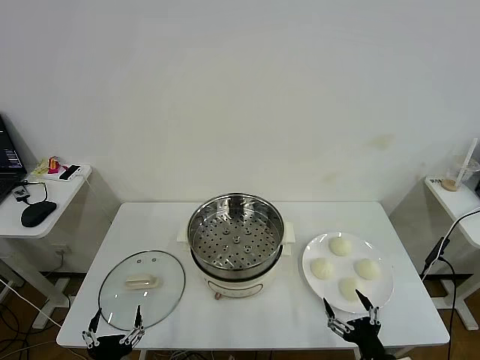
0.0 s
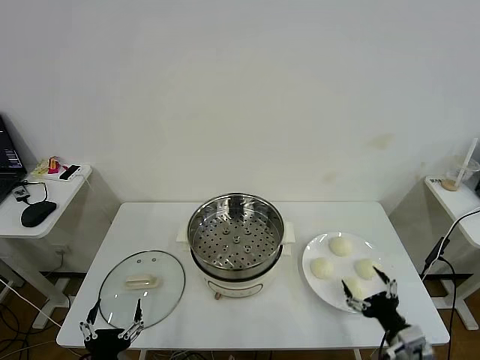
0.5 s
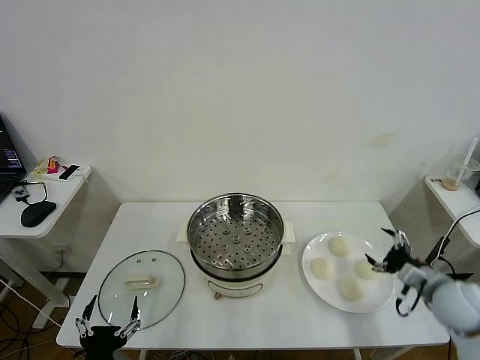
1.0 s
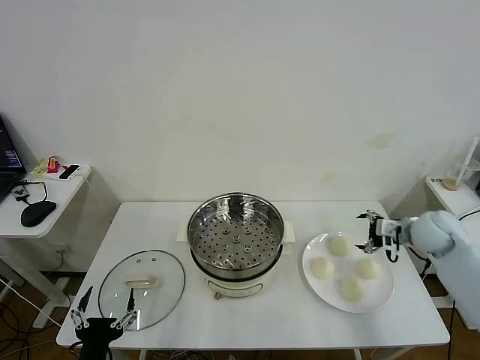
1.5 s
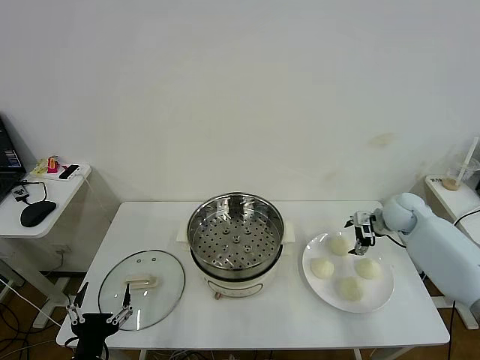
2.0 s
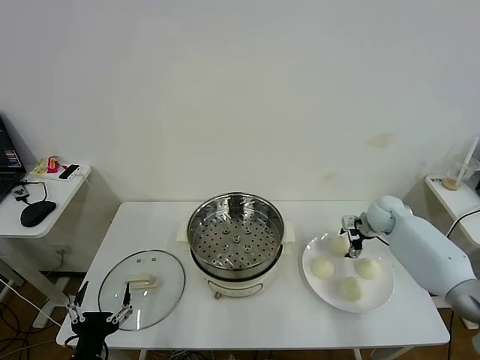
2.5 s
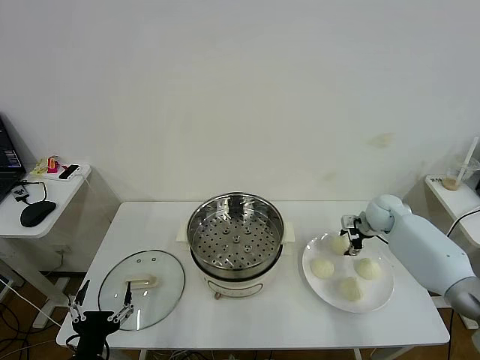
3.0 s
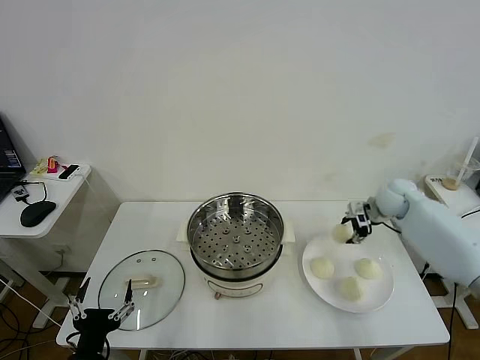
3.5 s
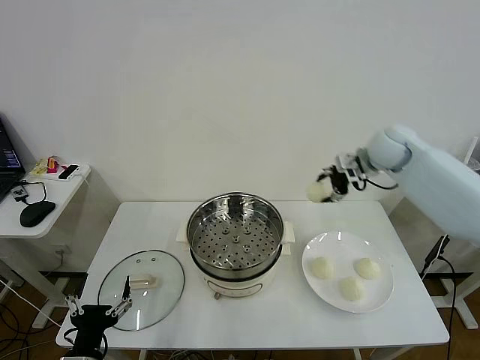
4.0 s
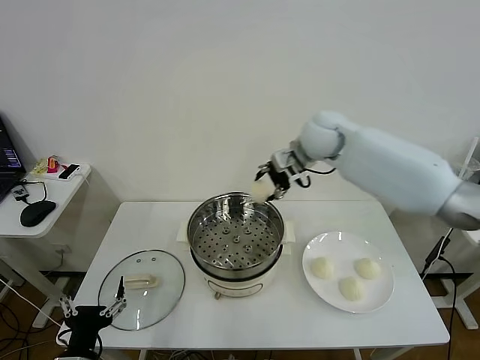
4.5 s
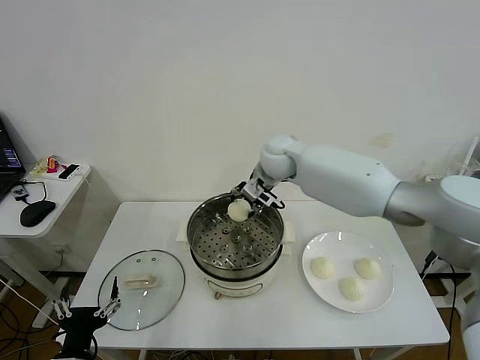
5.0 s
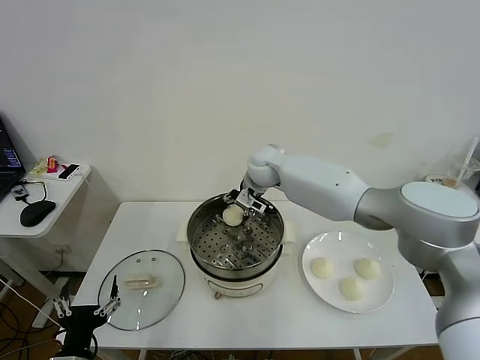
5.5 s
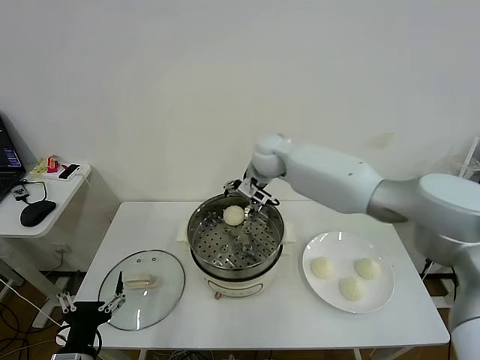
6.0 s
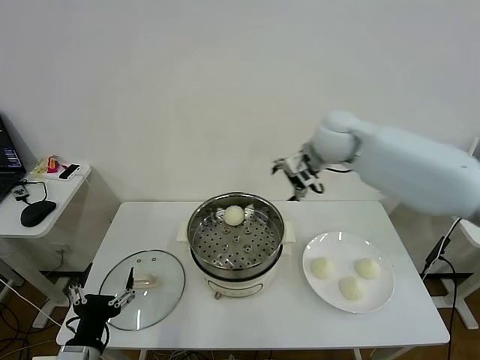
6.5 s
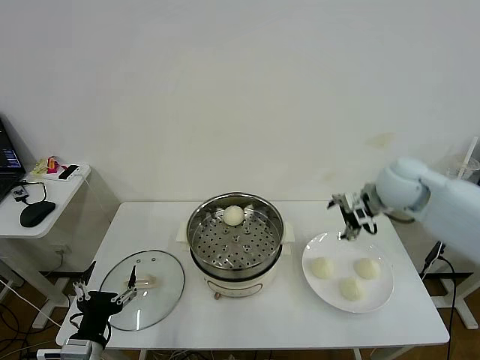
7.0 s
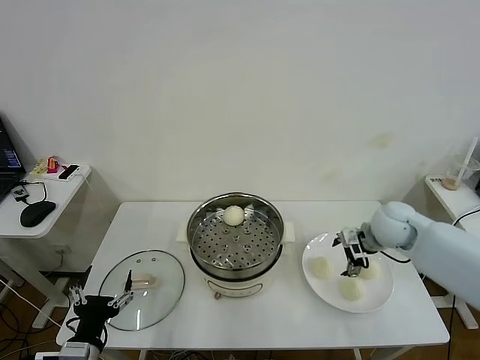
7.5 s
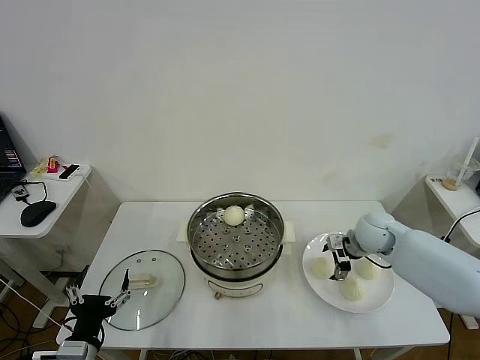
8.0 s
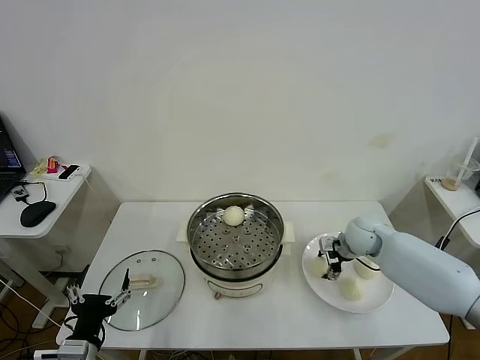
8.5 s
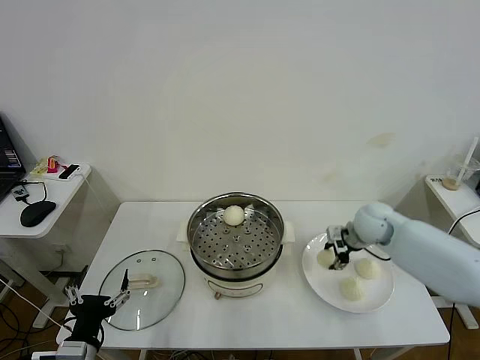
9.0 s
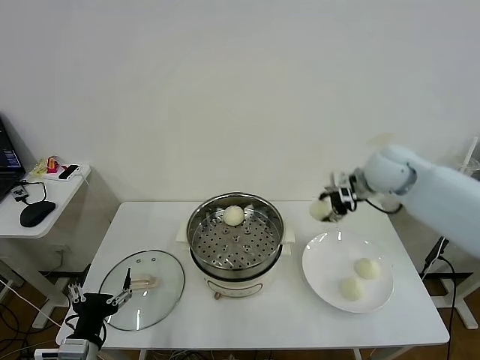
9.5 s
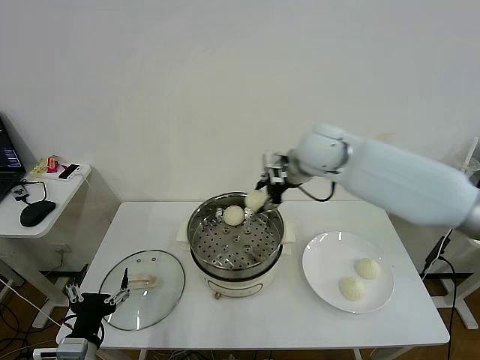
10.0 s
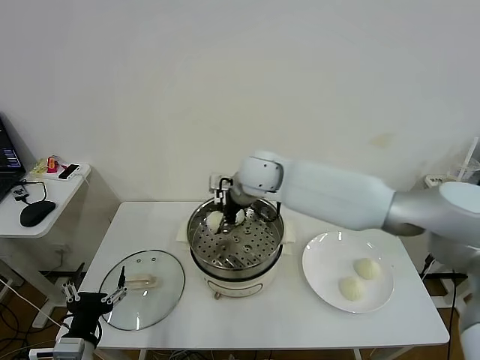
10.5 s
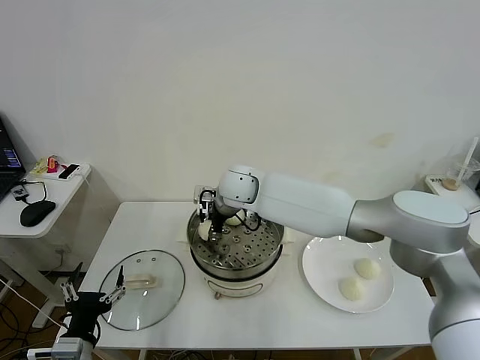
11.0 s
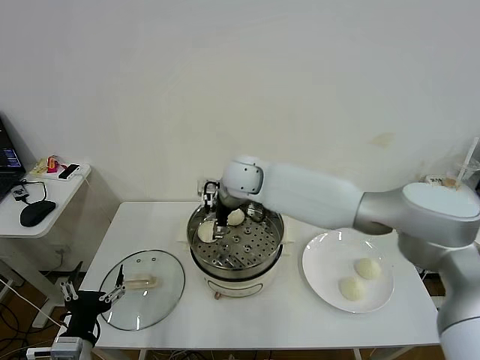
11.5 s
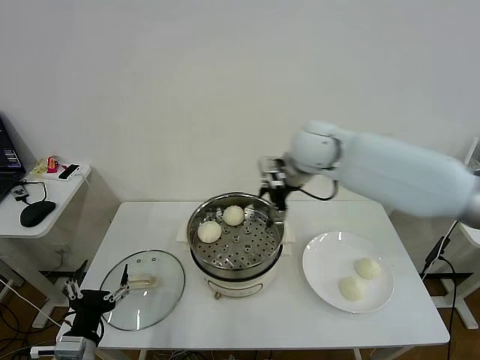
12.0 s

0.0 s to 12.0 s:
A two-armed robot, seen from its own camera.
Task of the whole recording: take steamed baozi put them in steamer then cover it.
Step, 0.0 to 2.5 s: Grasp the baozi in the plate with right gripper.
Step, 3.0 to 5.5 s: Place the baozi on the steamer with right gripper.
Step, 6.0 to 8.5 s: Grasp the baozi in the plate with right gripper.
Step, 9.0 to 11.5 s: Place the baozi on the steamer with right gripper.
2.0 to 4.0 s: The right gripper goes approximately 25 cm upward and to the left, and closes its fingers.
4.0 to 6.0 s: The right gripper shifts approximately 20 cm to the left, and opens.
6.0 to 8.0 s: The right gripper moves to the right, downward and backward, about 30 cm.
8.0 to 10.0 s: The right gripper travels upward and to the left by some 30 cm, and closes its fingers.
10.0 to 12.0 s: The right gripper travels to the left and back again, approximately 15 cm each way, and opens.

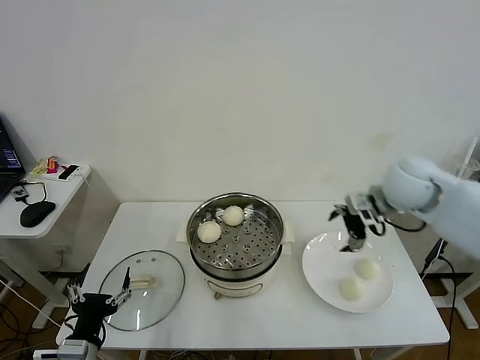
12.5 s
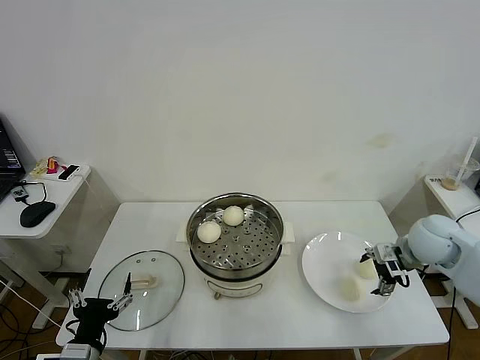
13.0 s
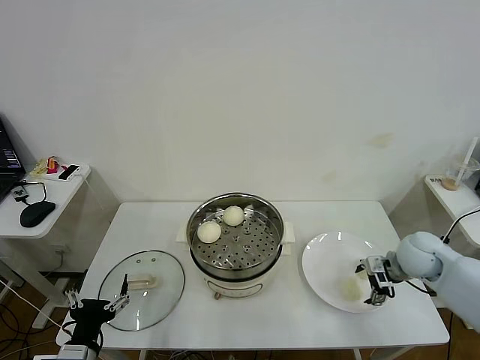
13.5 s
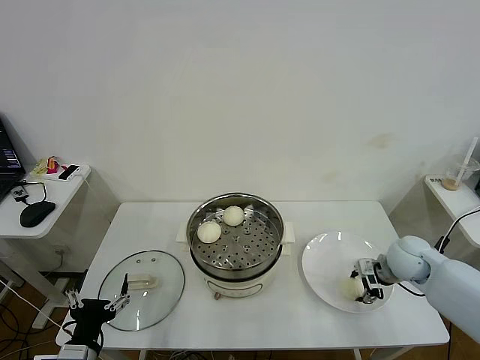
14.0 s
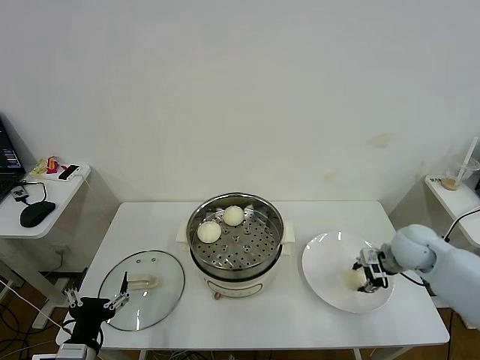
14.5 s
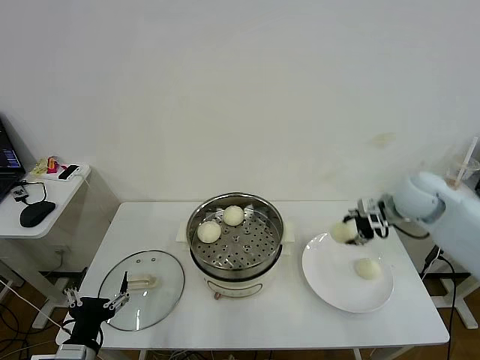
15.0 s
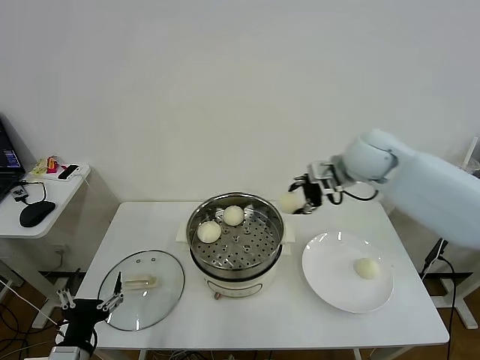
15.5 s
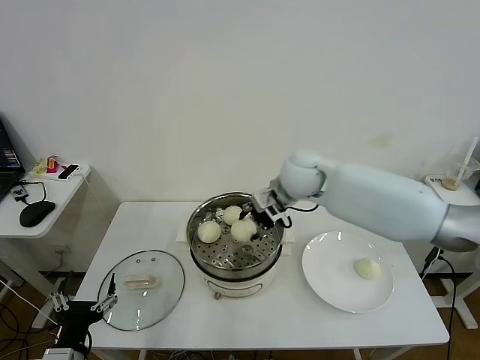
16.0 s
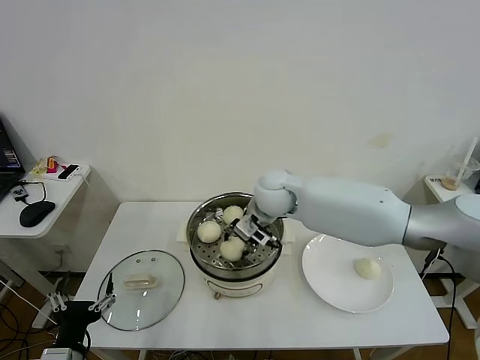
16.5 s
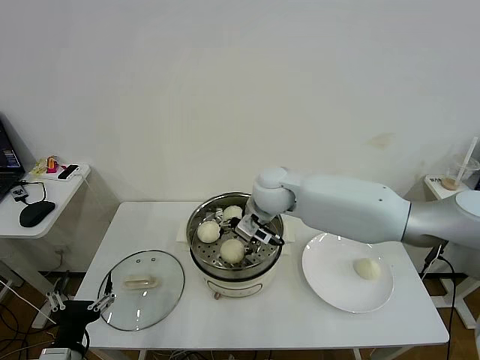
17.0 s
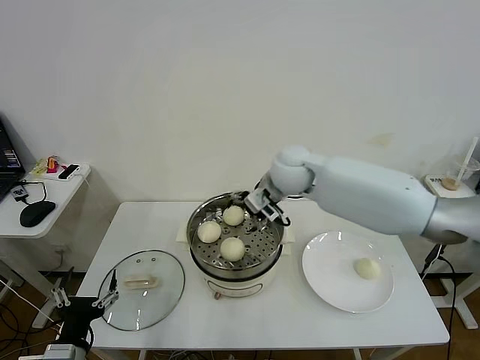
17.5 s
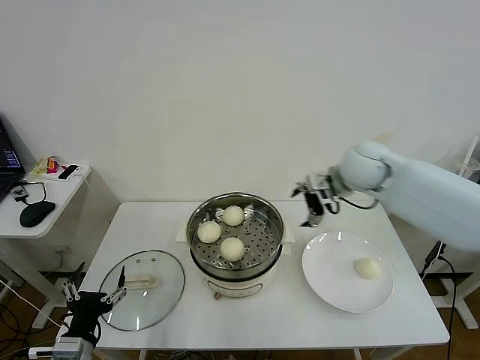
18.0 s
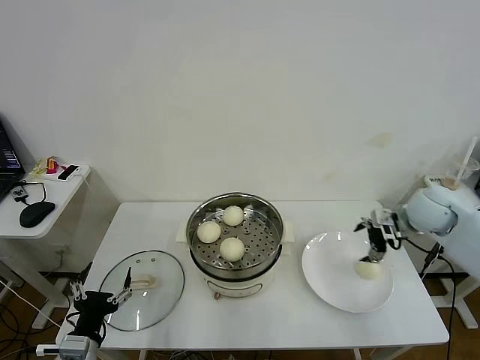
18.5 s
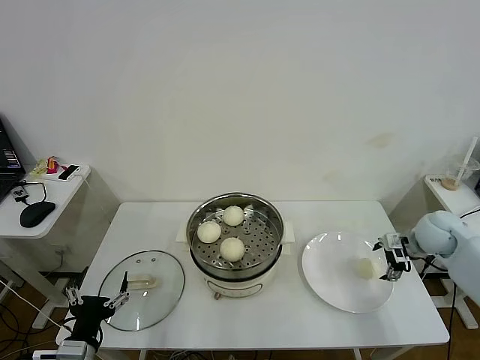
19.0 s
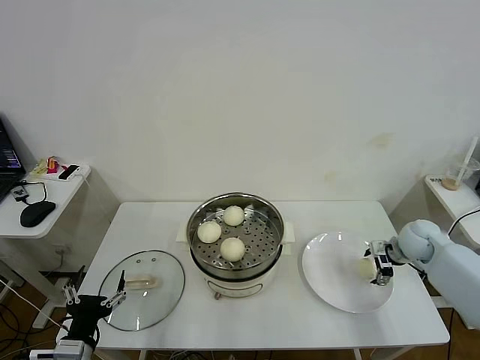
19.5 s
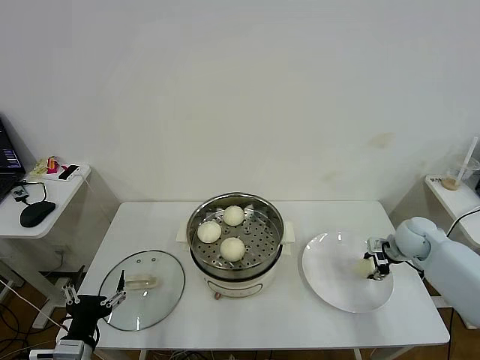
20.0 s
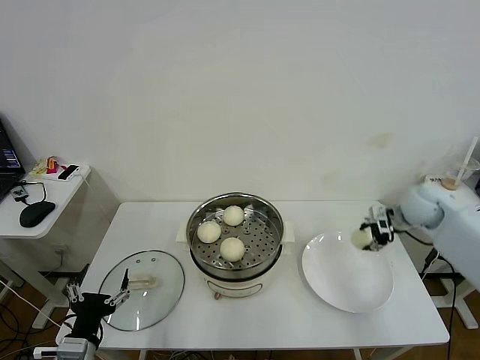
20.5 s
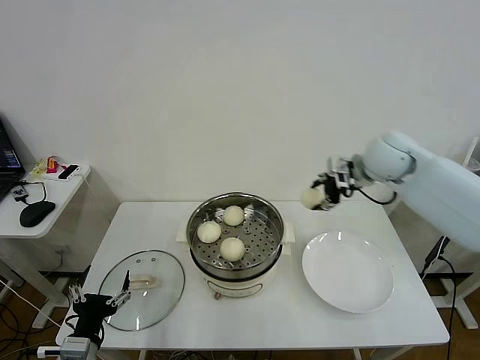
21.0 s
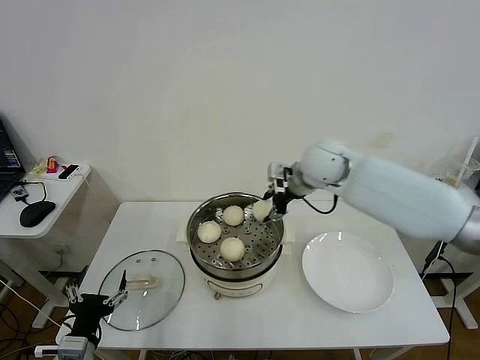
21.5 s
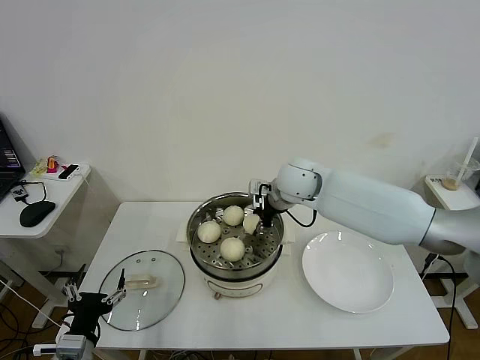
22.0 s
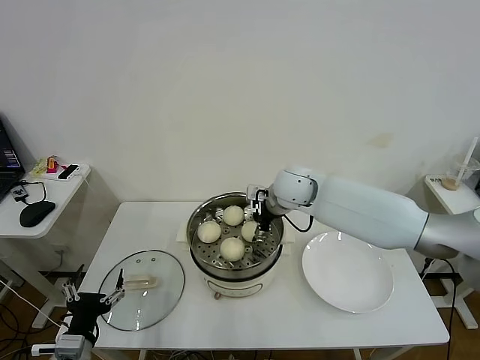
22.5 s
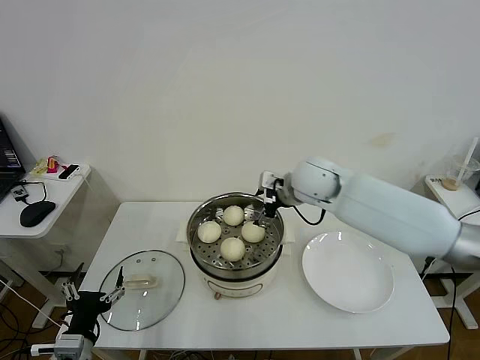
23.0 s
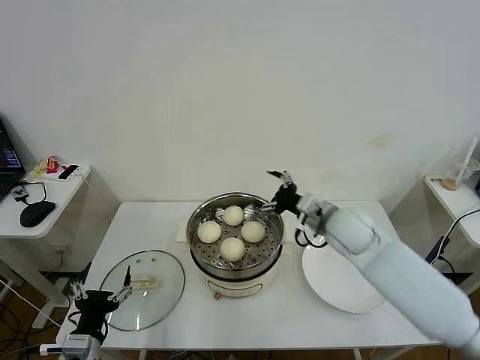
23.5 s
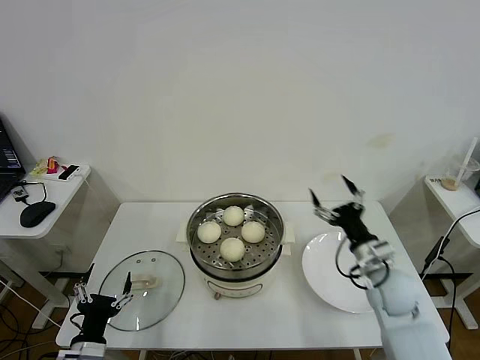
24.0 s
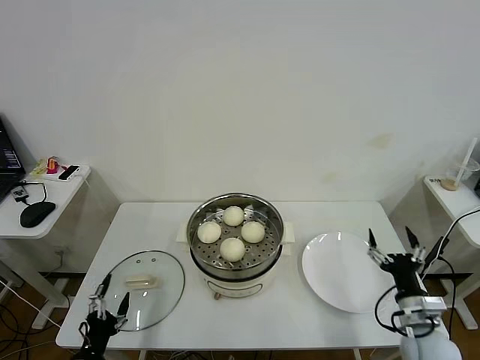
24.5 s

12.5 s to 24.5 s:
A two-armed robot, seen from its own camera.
Task of the whole recording: take steamed baozi put them in steamer then cover it.
Step, 12.5 to 14.0 s: Grasp the baozi in the plate with right gripper.
Step, 14.5 to 17.0 s: Place the baozi on the steamer with right gripper.
Step, 17.5 to 19.5 s: Grasp the baozi in the plate with right gripper.
Step, 20.5 to 22.5 s: Place the baozi on the steamer with right gripper.
12.5 to 14.5 s: The right gripper shifts roughly 15 cm downward, and closes its fingers.
14.5 to 16.5 s: The right gripper heads to the left, covering approximately 30 cm.
16.5 to 18.5 s: The right gripper travels to the right by about 35 cm, and opens up.
18.5 to 20.5 s: The right gripper goes downward and returns, approximately 10 cm each way, and closes.
20.5 to 22.5 s: The right gripper heads to the left, covering about 30 cm, and opens up.
22.5 to 24.5 s: The right gripper is displaced backward, to the right and downward by some 40 cm. Meanwhile the left gripper moves downward, about 5 cm.

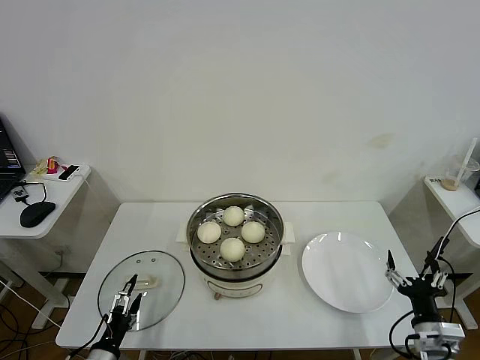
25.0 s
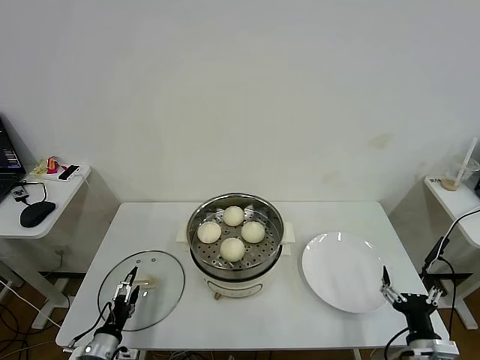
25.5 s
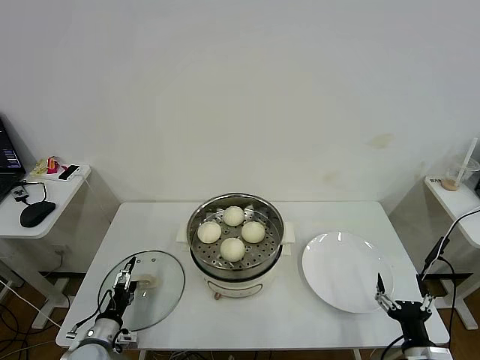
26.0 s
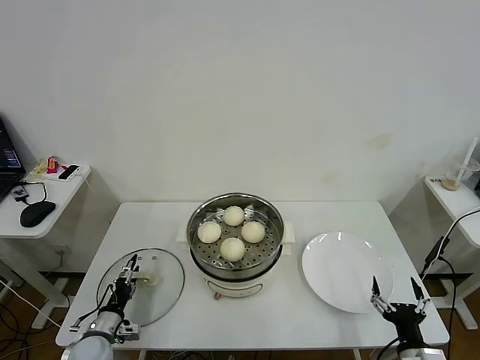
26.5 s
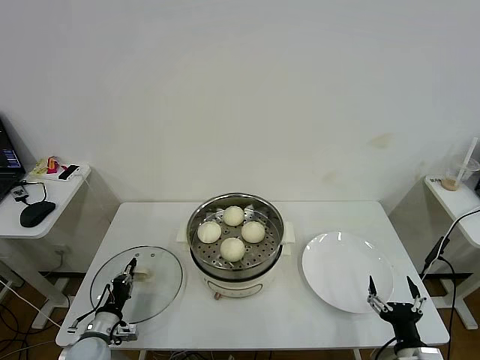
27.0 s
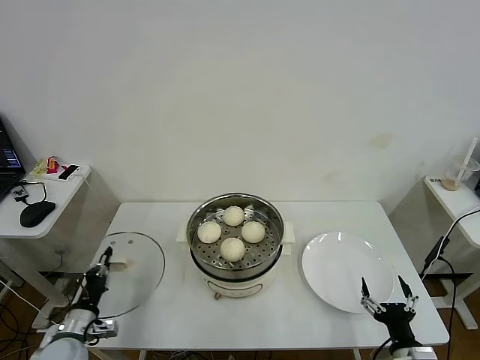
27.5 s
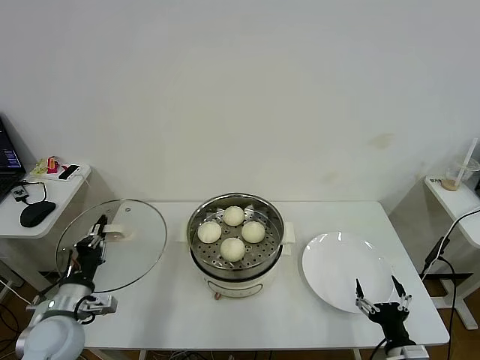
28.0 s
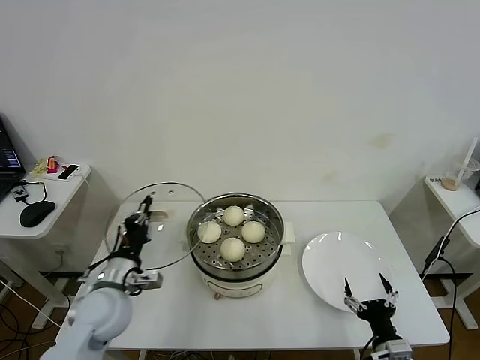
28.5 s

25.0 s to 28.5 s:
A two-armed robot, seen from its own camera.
Task of the whole recording: take steamed baozi put them in steamer then cover it.
Step, 25.0 to 27.0 s: Grasp the pot lid with left gripper.
25.0 to 27.0 s: The left gripper is displaced forward by some 10 cm, and closes its fingers; the right gripper ends up roughly 5 cm from where it was.
27.0 to 28.5 s: The left gripper goes some 20 cm upward and to the right.
